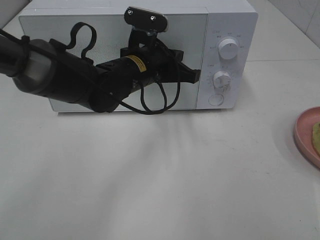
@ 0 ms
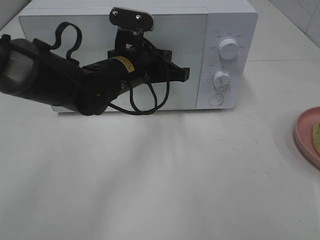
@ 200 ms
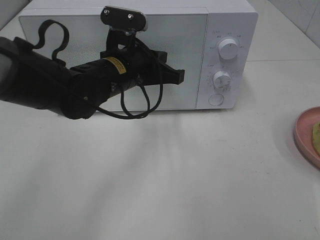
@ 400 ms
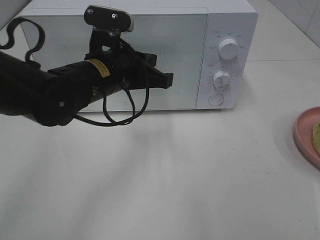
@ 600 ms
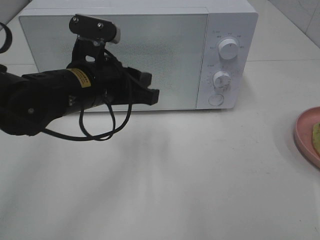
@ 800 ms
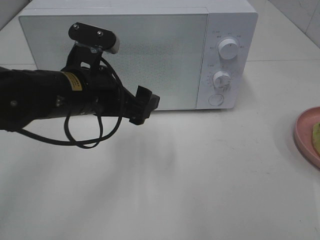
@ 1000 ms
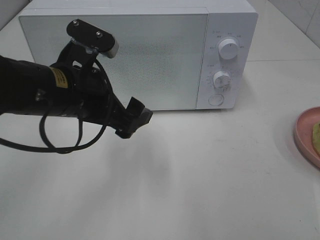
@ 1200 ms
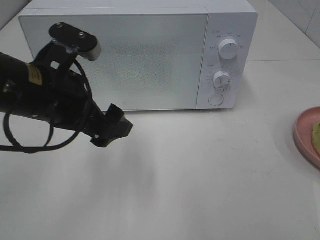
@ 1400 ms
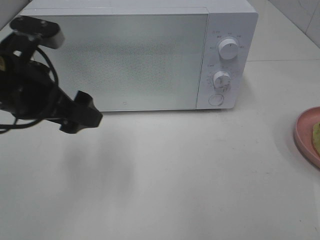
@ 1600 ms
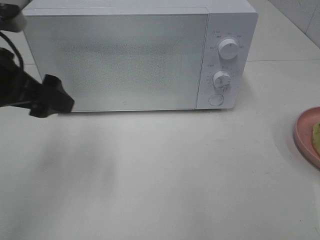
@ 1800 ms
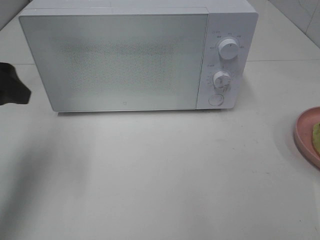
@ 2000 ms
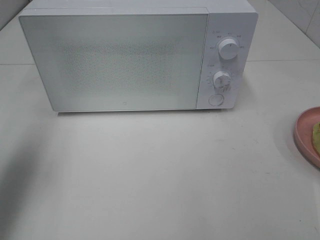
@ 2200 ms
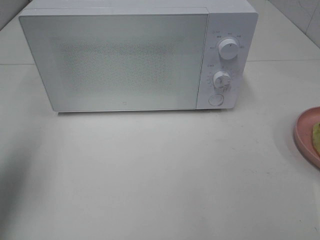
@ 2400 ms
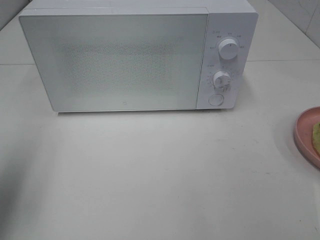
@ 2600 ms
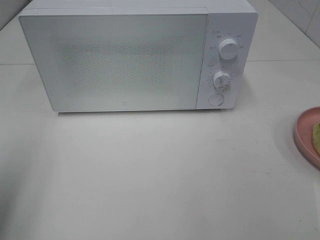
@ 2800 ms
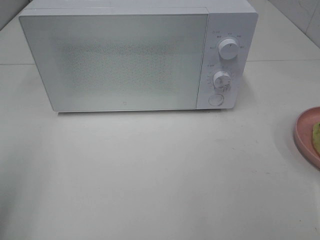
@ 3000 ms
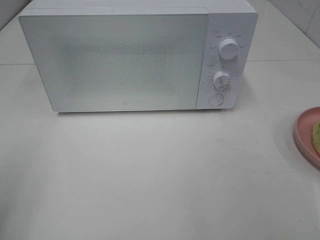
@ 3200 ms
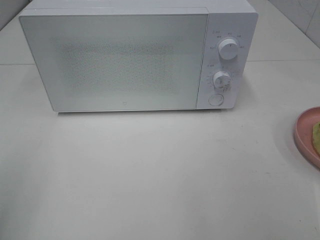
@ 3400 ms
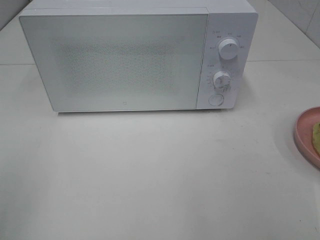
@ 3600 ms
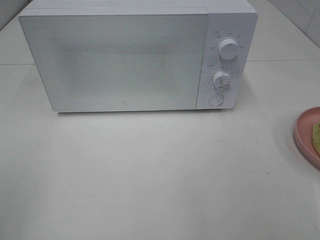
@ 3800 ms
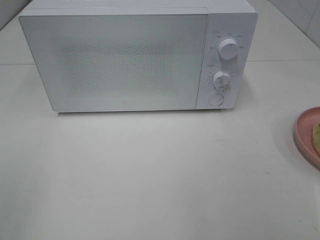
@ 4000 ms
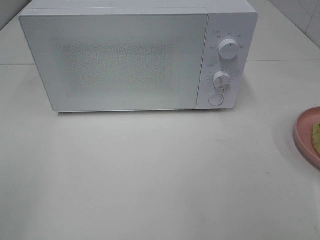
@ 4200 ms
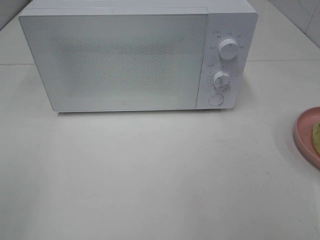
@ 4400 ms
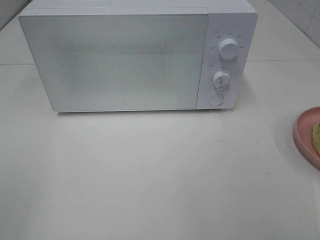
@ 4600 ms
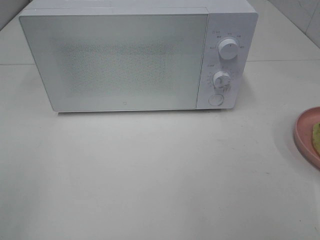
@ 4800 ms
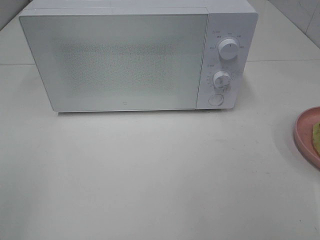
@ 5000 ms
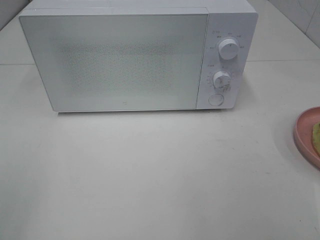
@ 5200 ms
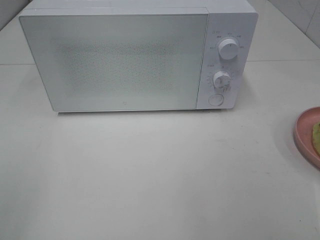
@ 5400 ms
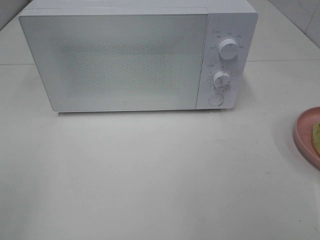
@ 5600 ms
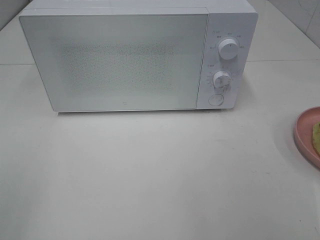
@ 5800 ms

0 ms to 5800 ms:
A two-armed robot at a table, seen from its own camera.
Task of the whole recording: Heat Sandwich.
0 ms to 1400 ms: The left gripper moves backward, to the left and upward, some 15 cm, and opens up.
1400 ms to 2800 ms: The left gripper shifts approximately 20 cm to the left and backward.
2800 ms to 4400 ms: The left gripper moves backward, approximately 10 cm.
4400 ms to 5800 ms: The two grippers keep their place.
